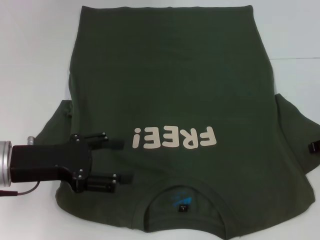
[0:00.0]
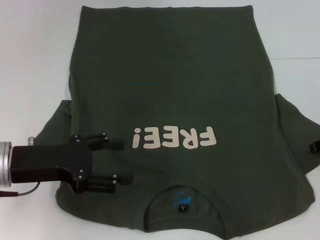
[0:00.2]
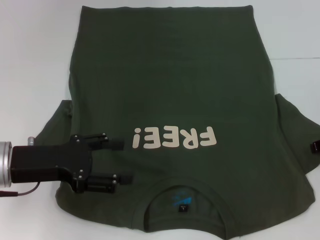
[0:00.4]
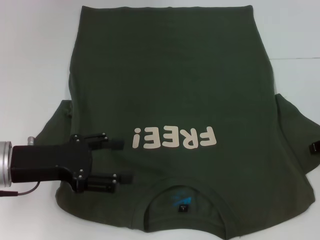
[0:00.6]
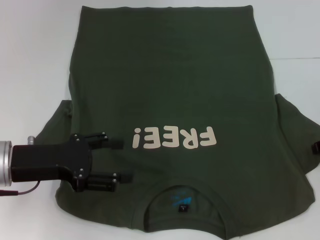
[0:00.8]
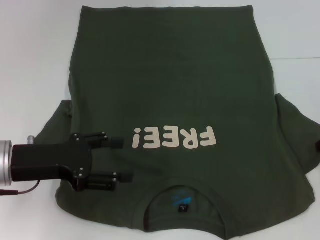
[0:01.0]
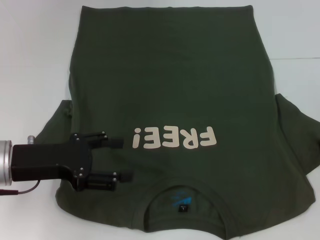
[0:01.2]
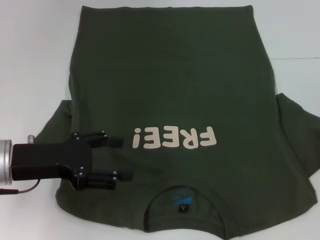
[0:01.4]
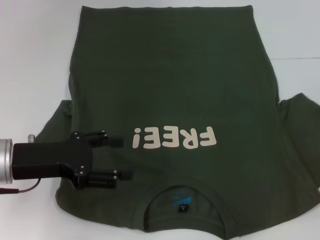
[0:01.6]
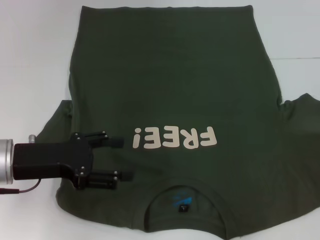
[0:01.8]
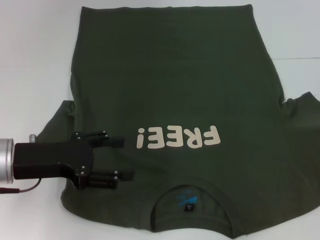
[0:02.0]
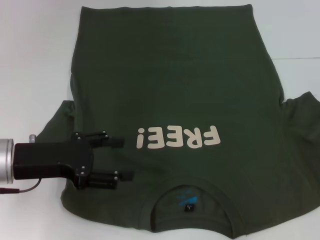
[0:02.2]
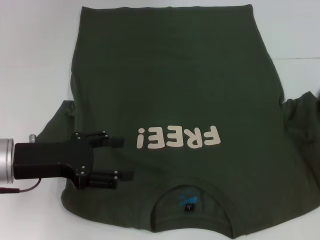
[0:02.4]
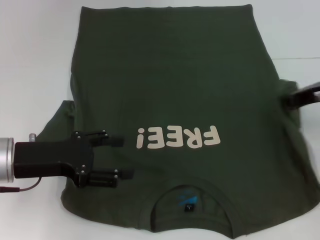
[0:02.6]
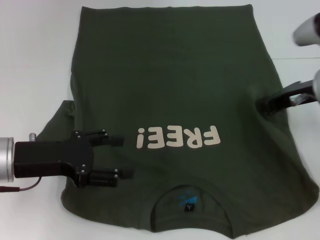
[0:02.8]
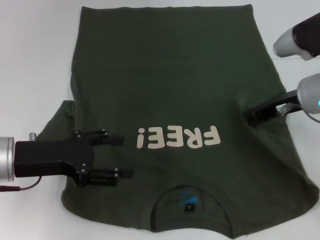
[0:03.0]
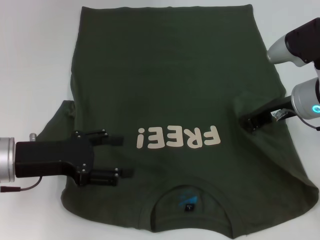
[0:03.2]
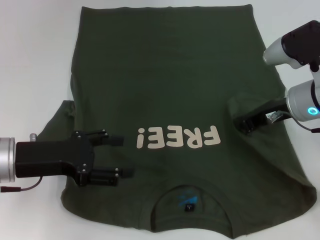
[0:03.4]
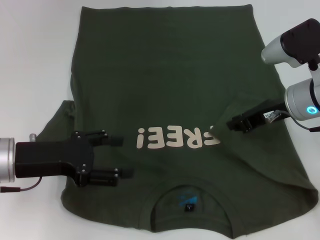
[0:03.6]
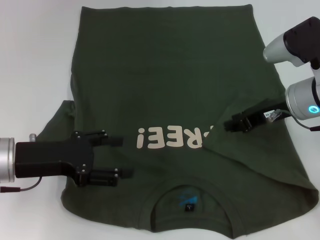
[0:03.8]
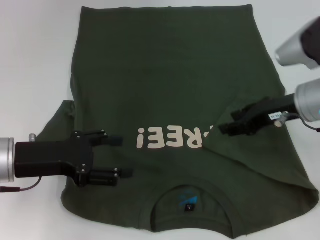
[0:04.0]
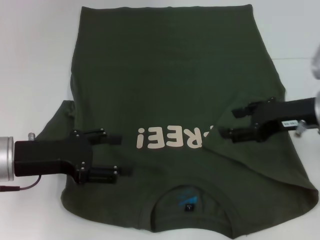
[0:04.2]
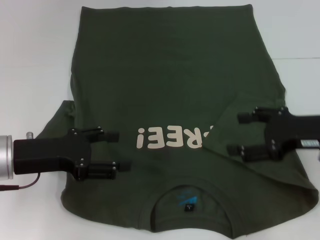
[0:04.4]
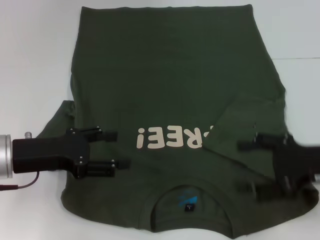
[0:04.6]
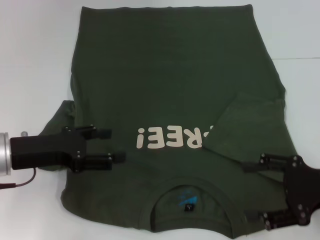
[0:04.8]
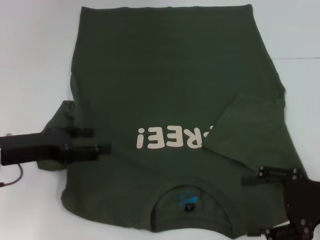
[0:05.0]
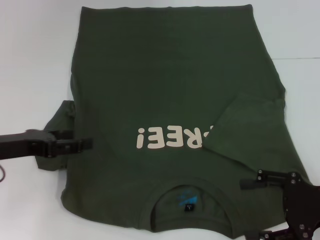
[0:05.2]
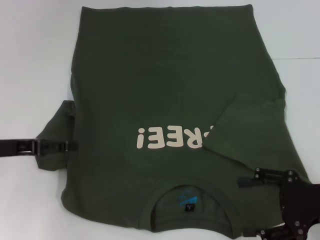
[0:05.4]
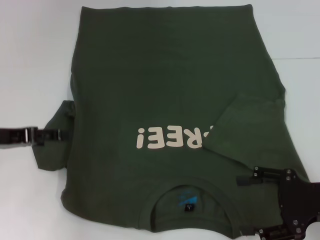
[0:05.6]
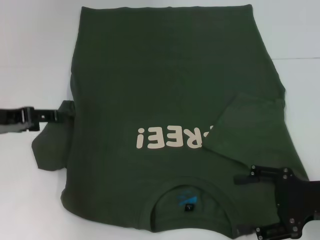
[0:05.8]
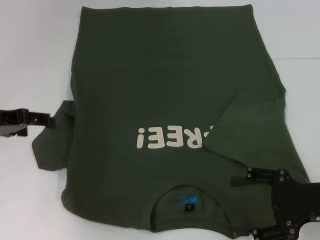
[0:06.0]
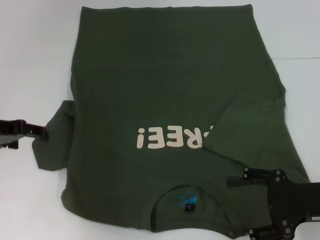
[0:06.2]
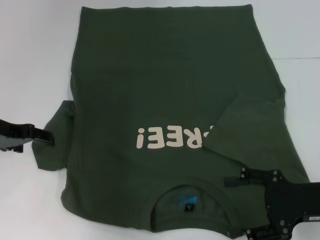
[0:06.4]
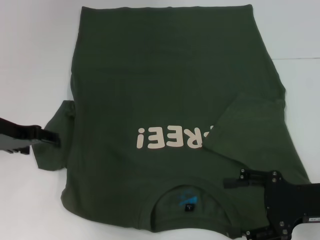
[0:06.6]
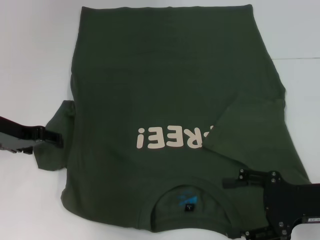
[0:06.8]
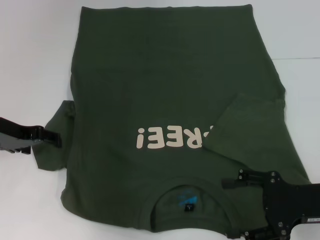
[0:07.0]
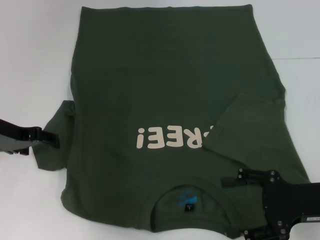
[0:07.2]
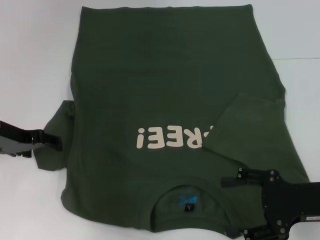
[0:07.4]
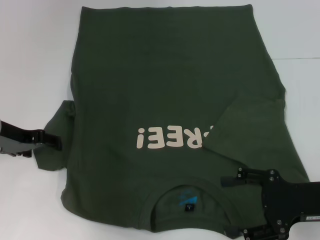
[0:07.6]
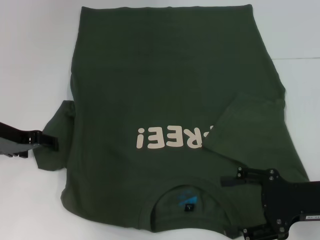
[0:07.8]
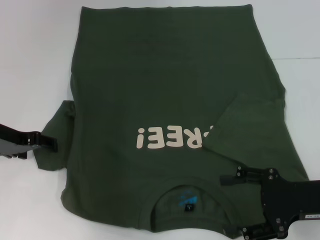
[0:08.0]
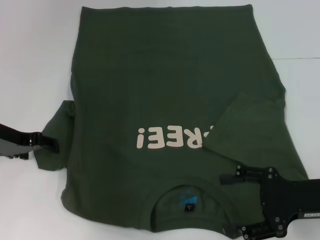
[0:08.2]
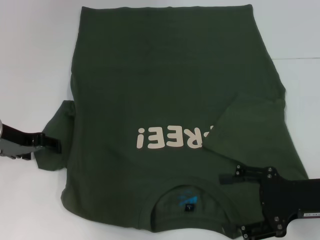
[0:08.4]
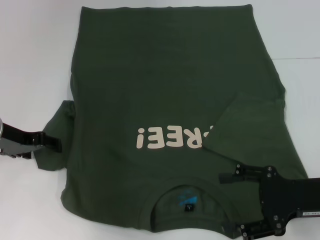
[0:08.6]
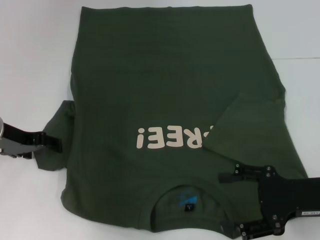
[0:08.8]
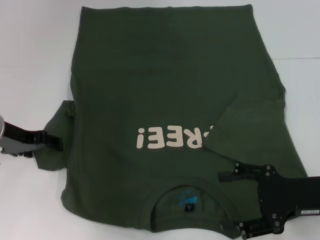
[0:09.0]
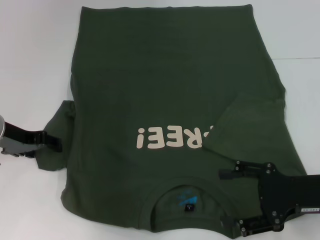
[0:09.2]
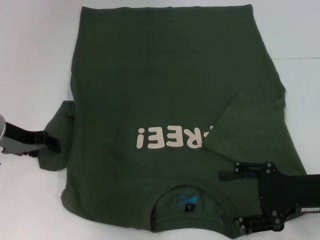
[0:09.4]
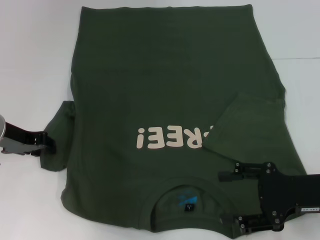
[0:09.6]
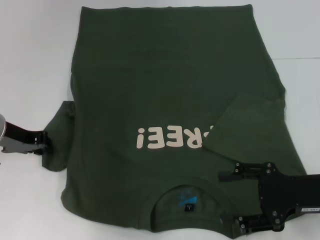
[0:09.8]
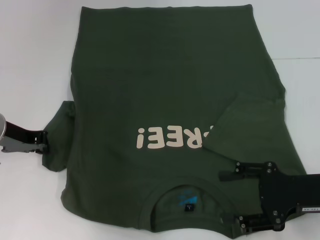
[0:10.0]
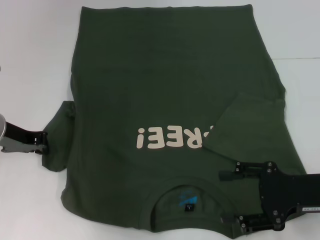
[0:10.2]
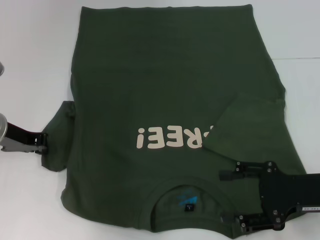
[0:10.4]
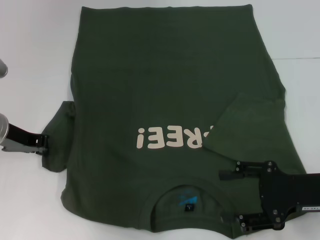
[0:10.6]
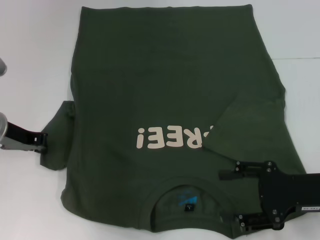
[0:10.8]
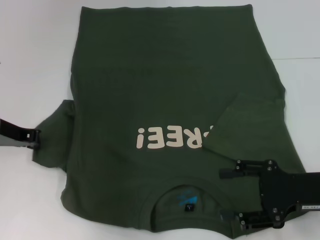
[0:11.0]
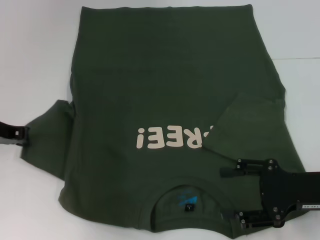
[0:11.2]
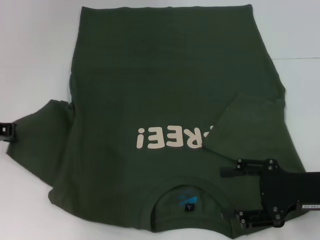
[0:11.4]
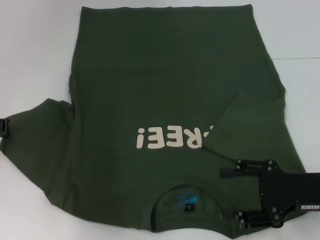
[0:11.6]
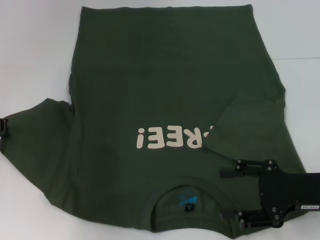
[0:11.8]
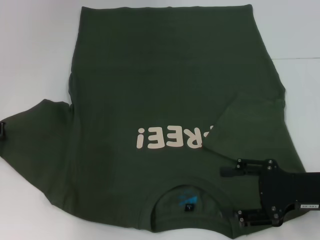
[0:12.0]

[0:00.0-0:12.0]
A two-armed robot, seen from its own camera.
Step, 0:00.0 to 0:03.6: Fold the bottom right sleeve with your right hand.
0:00.0 to 0:01.6: The right gripper closes up.
0:01.6 to 0:03.0: The right gripper is displaced to the left by about 15 cm.
0:03.0 to 0:04.4: The right gripper moves backward, roughly 5 cm, and opens up.
0:04.4 to 0:06.0: The left gripper travels to the left by roughly 5 cm. Meanwhile the right gripper travels backward by approximately 5 cm.
0:06.0 to 0:07.6: The left gripper shifts by about 5 cm.
0:07.6 to 0:09.0: Both grippers stay about where they are.
0:09.0 to 0:10.4: The left gripper closes its fingers.
0:10.4 to 0:12.0: The left gripper moves to the left, roughly 5 cm.

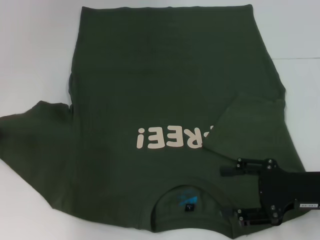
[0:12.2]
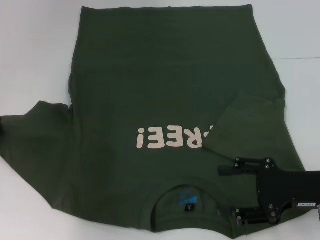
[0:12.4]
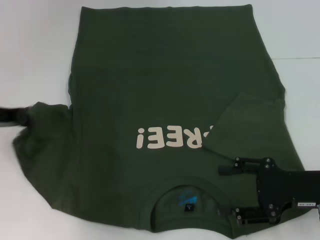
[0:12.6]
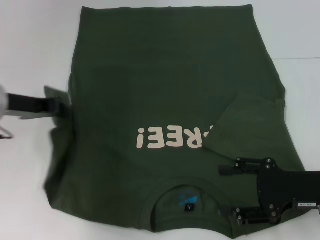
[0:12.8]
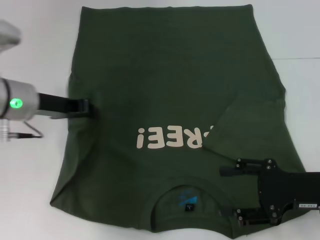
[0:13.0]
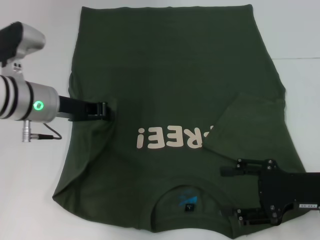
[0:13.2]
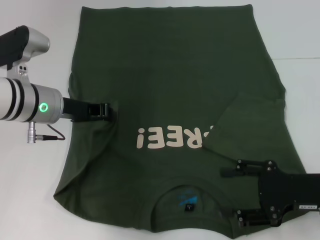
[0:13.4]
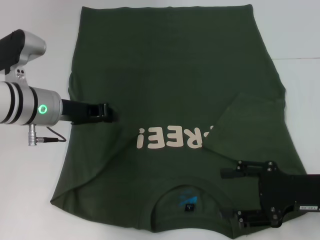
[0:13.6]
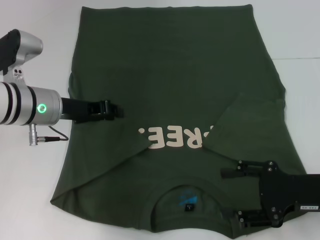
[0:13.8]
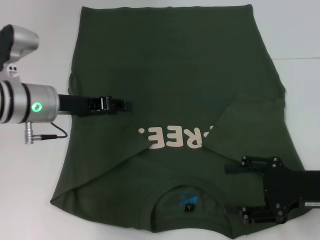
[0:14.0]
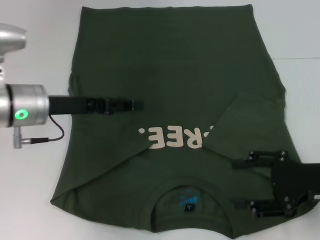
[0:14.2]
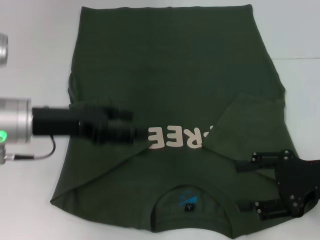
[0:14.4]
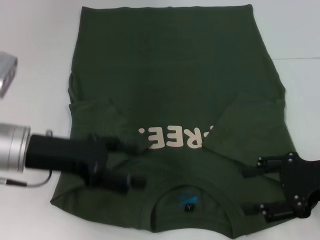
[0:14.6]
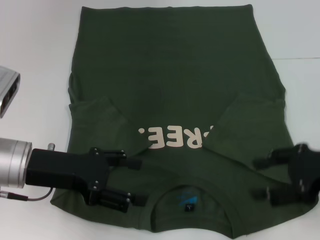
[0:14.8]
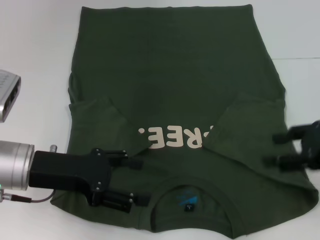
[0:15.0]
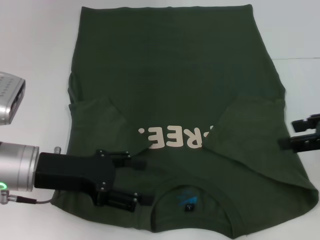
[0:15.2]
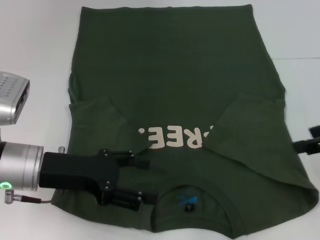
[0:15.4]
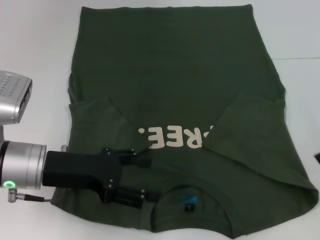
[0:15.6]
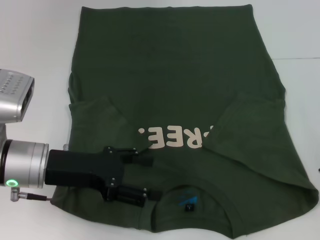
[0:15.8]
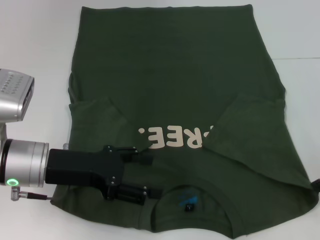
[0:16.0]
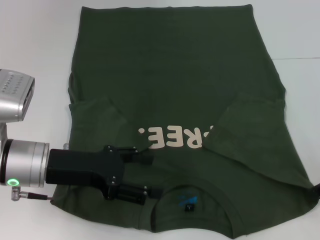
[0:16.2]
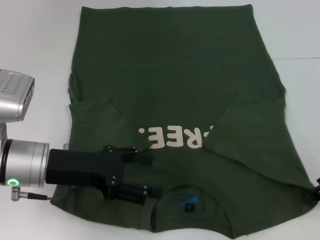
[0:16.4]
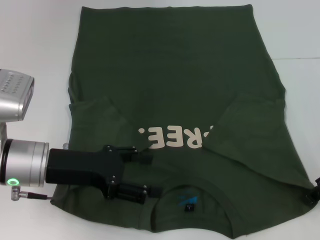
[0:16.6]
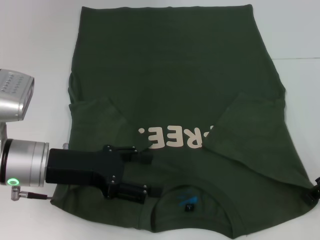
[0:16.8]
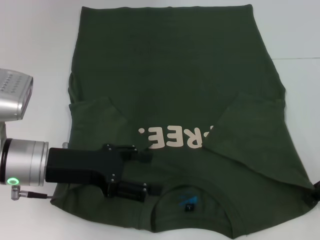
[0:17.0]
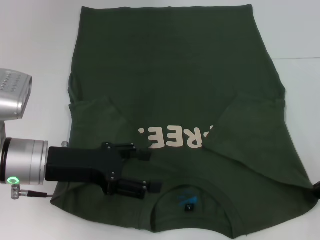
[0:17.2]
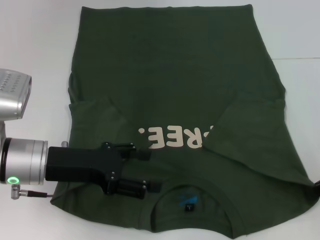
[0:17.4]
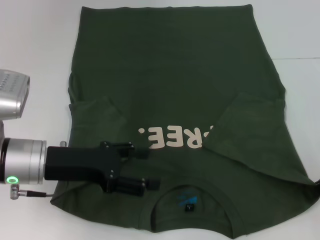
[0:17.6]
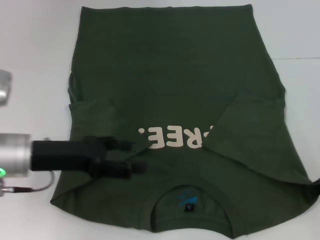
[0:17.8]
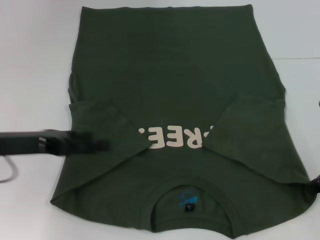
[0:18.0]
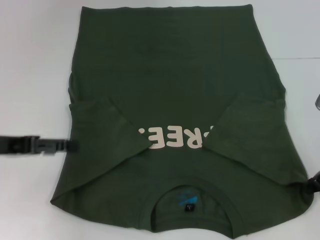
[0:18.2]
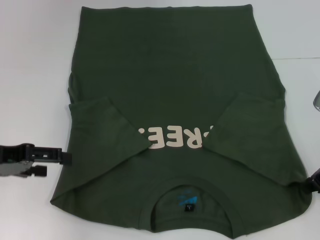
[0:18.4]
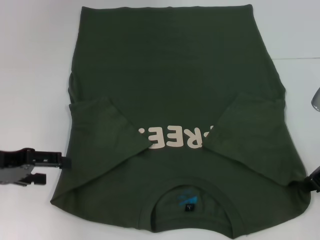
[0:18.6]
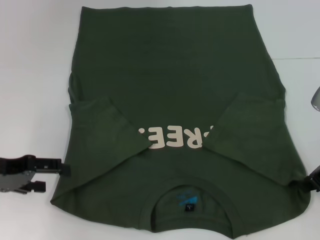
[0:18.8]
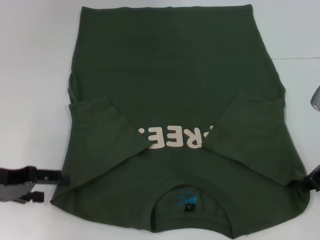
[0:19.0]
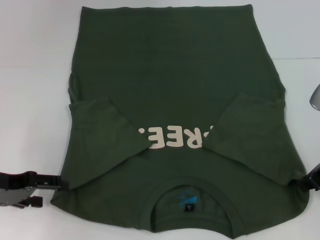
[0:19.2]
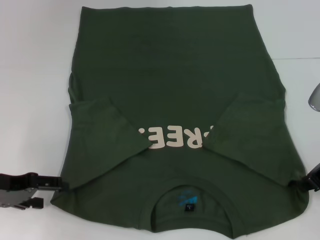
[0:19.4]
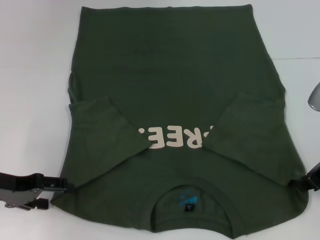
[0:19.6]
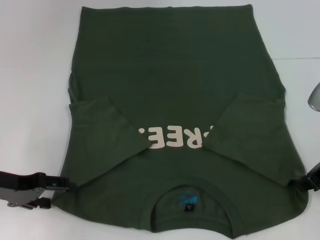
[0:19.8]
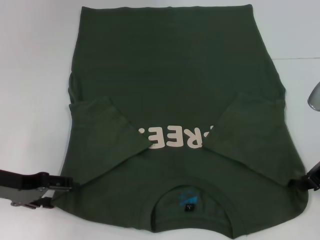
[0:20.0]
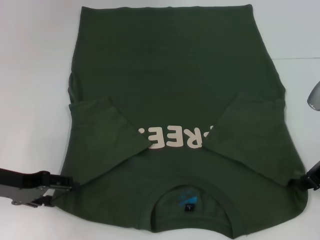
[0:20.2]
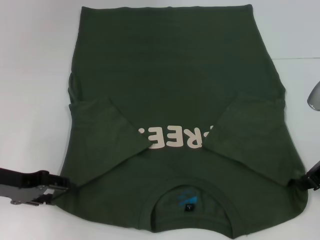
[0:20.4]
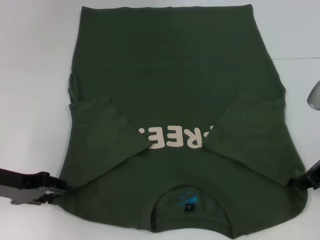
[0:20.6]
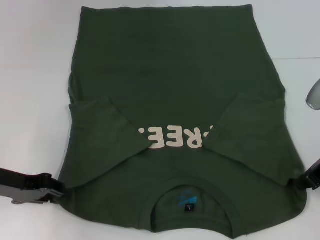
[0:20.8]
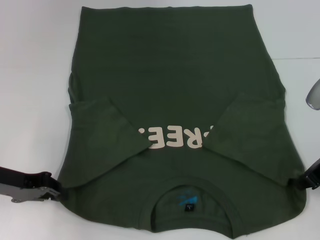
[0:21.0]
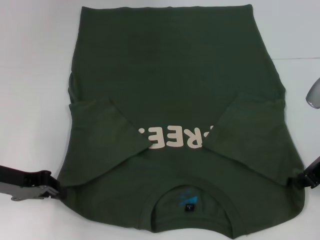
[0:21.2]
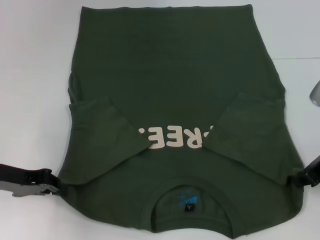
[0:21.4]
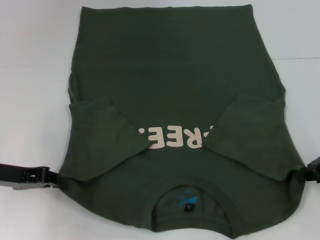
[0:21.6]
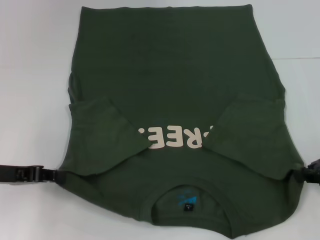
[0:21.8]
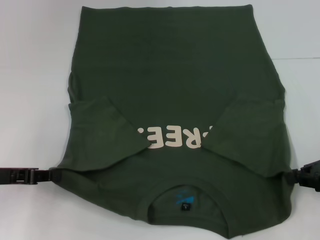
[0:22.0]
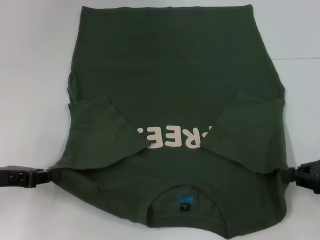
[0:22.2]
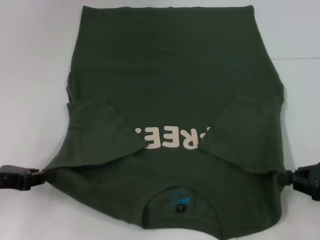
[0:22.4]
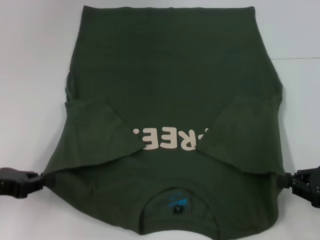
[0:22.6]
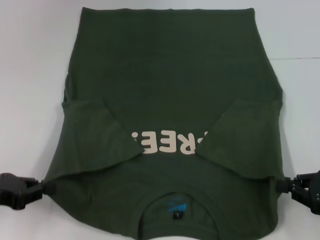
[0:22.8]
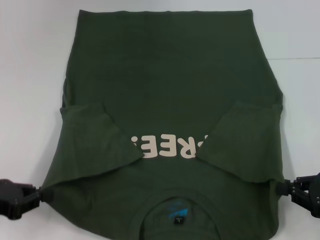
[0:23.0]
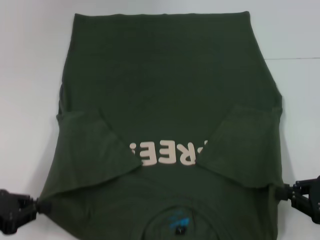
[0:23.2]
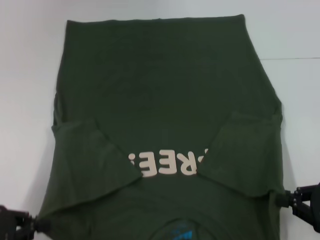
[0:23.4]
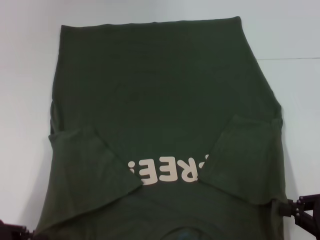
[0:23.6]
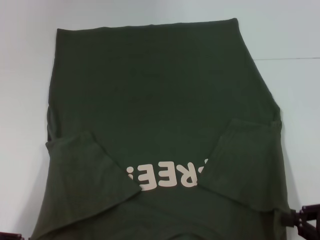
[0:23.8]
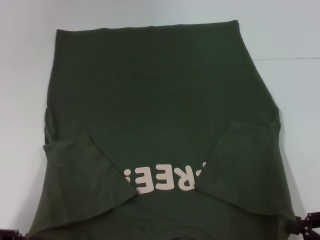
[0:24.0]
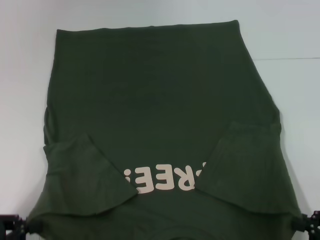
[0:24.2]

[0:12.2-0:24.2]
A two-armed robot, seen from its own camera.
Step, 0:13.8 to 0:17.4: Grab the bottom right corner with your right hand.
Step, 0:17.6 to 0:21.0: Grab the bottom left corner with your left hand.
0:12.2 to 0:13.8: The left gripper travels to the right by approximately 15 cm.
0:13.8 to 0:15.2: The left gripper moves backward, approximately 10 cm, and opens, while the right gripper moves upward, approximately 10 cm.
0:15.2 to 0:16.6: The right gripper heads downward, covering some 5 cm.
0:16.6 to 0:18.2: The right gripper closes; the left gripper goes roughly 10 cm to the left.
0:18.2 to 0:19.8: The left gripper heads downward, covering roughly 5 cm.
0:19.8 to 0:21.2: The left gripper closes up.
0:21.2 to 0:22.6: The left gripper shifts by some 5 cm. Meanwhile the right gripper heads backward, downward and to the right, covering roughly 10 cm.
0:22.6 to 0:24.2: The grippers both shift backward by approximately 10 cm.
